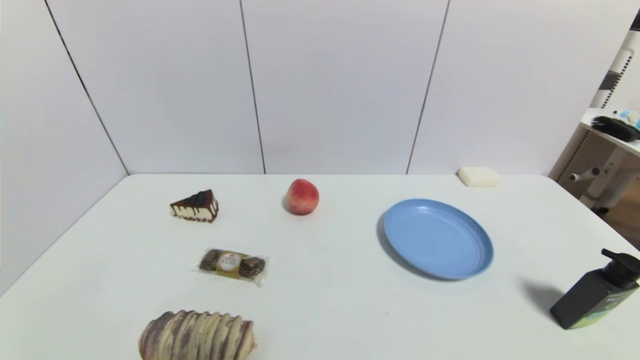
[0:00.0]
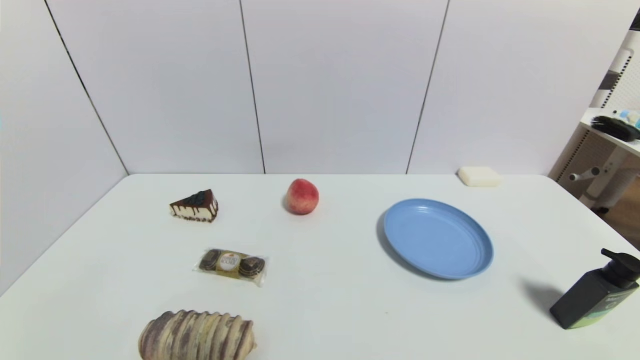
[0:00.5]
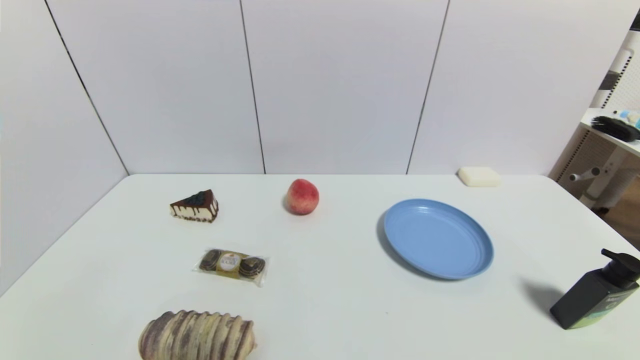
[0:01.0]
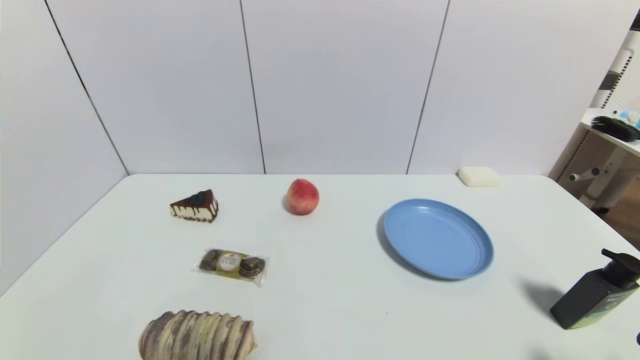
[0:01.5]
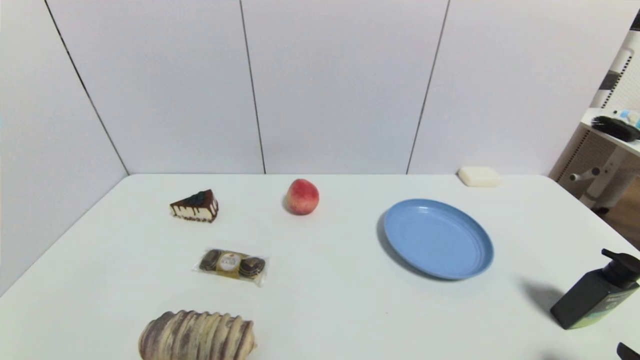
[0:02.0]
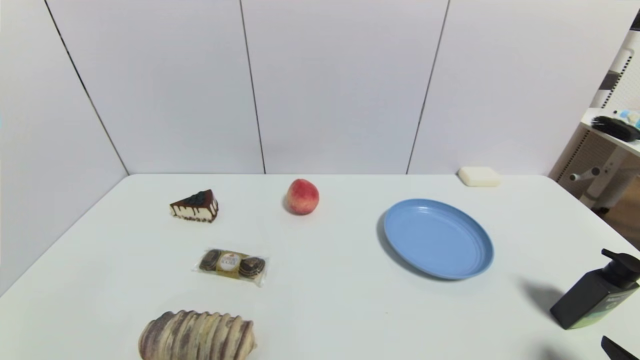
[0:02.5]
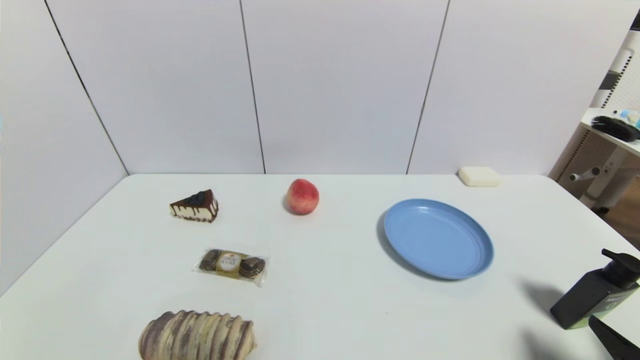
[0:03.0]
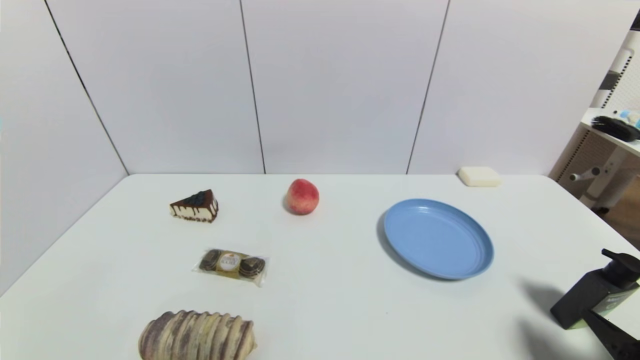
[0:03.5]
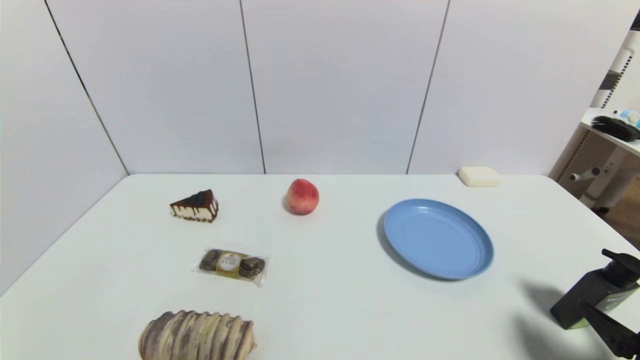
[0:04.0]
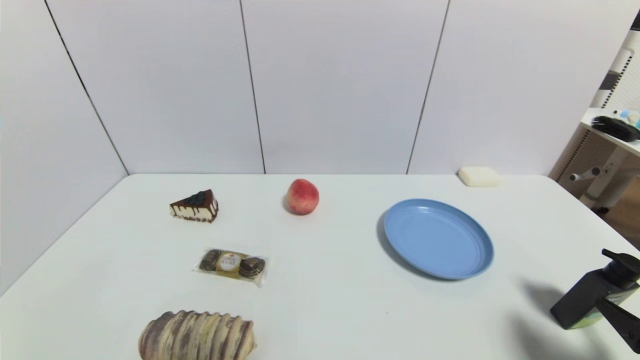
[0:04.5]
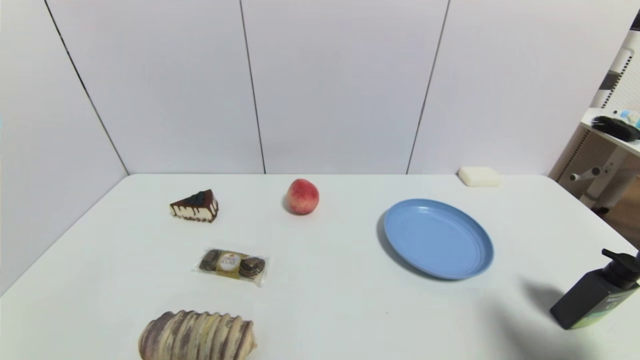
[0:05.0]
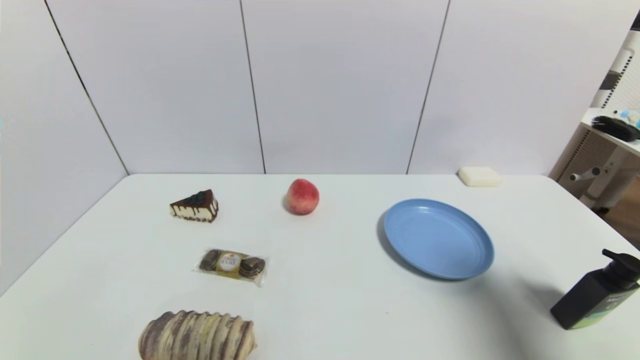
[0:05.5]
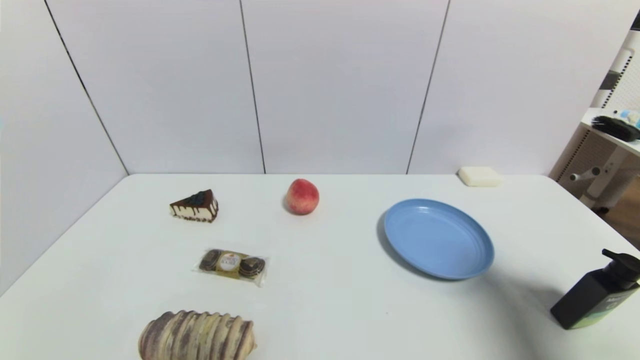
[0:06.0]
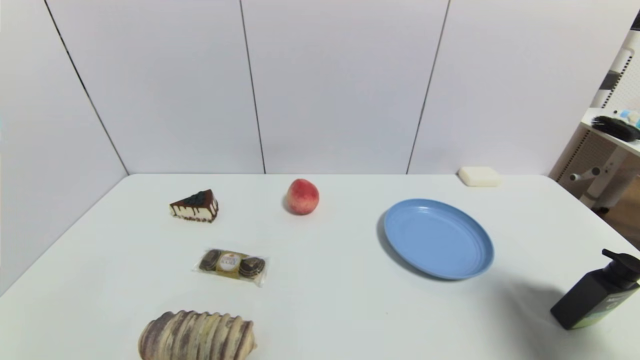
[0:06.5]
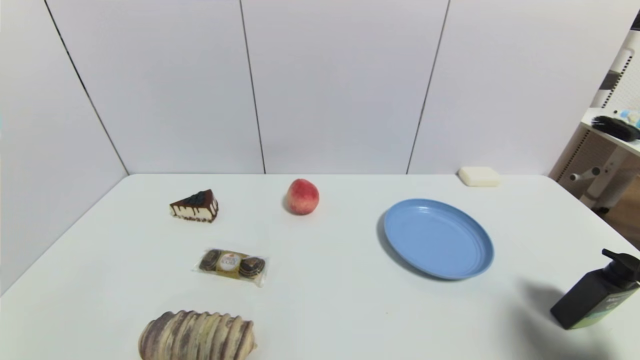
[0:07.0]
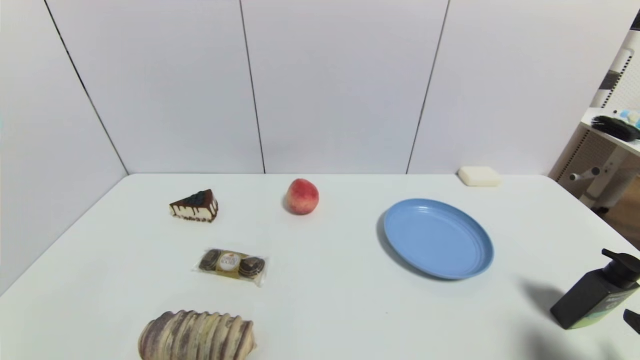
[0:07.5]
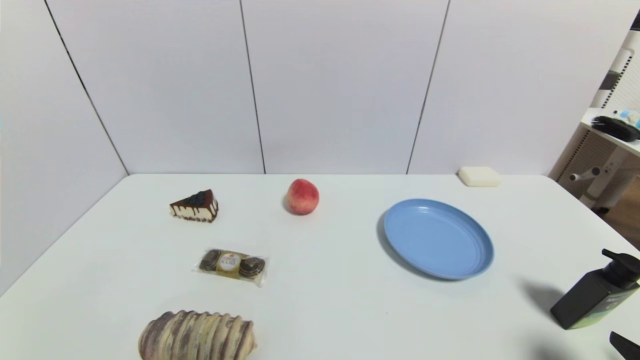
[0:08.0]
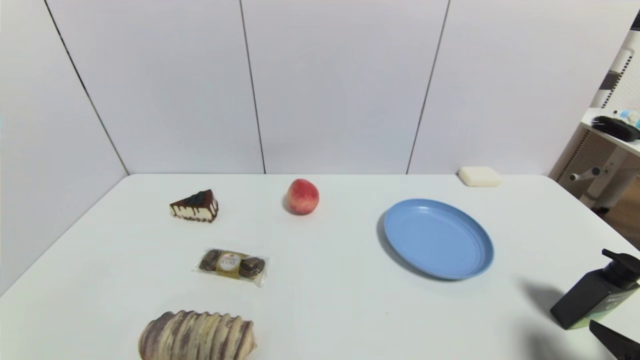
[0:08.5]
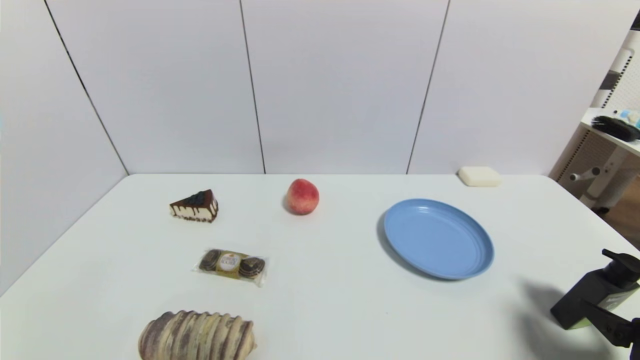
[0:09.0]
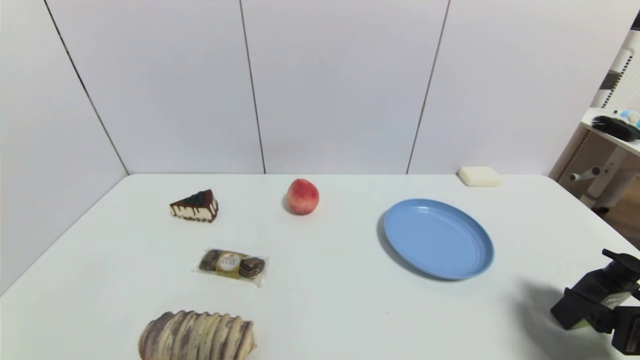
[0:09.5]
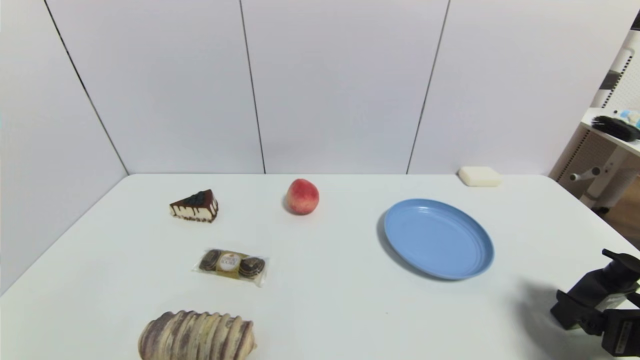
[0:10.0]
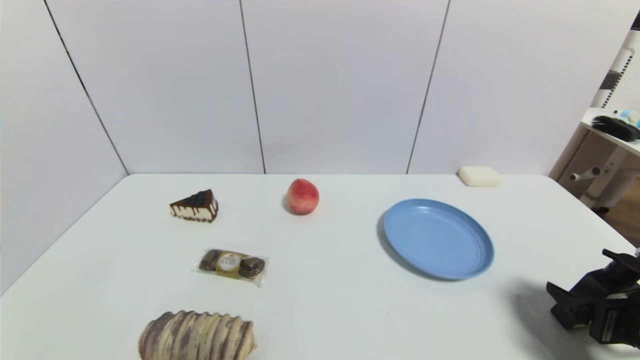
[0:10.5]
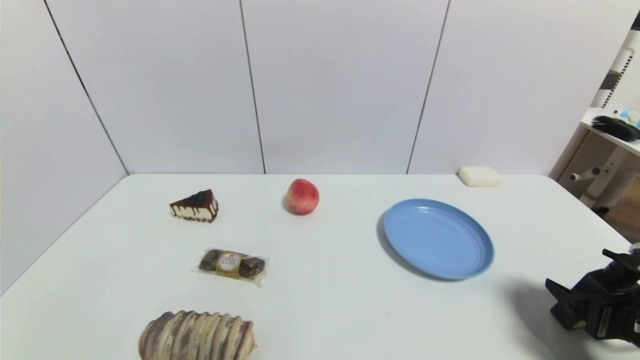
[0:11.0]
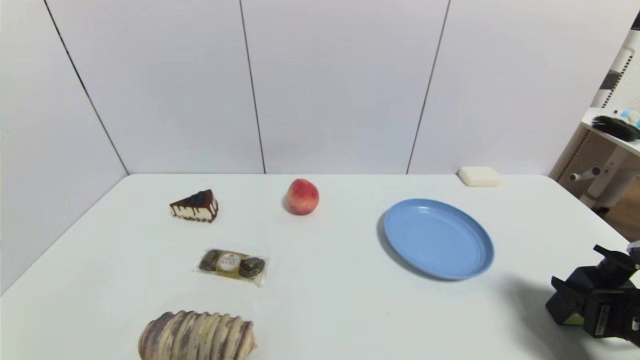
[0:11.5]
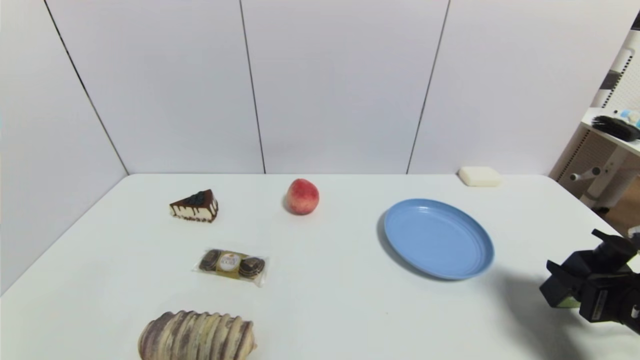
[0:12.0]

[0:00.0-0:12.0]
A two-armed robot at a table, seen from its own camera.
Task of the whole recording: use a gripper to pick the target object and place on the blue plate.
Step, 0:00.0 to 0:11.0: Grasp the hard facial cleanser with the right gripper.
0:02.0 to 0:04.0: The right gripper shifts about 5 cm forward.
0:04.0 to 0:06.0: The right gripper shifts approximately 15 cm upward.
0:06.0 to 0:08.0: The right gripper heads downward and backward, covering about 15 cm.
0:08.0 to 0:10.0: The right gripper is displaced forward by about 5 cm.
0:10.0 to 0:12.0: The right gripper closes its fingers.

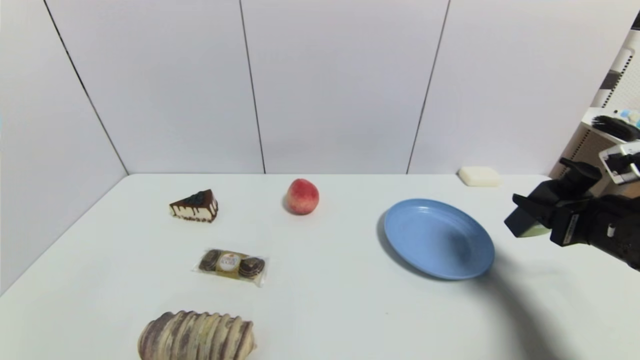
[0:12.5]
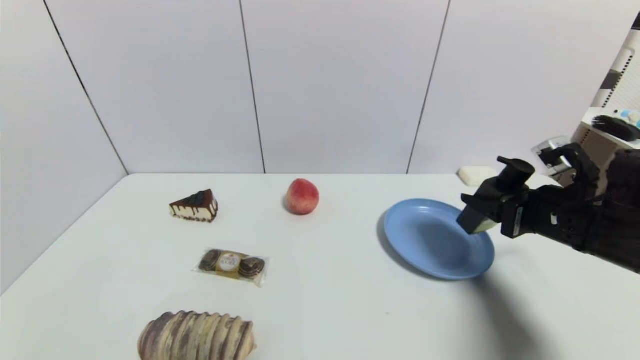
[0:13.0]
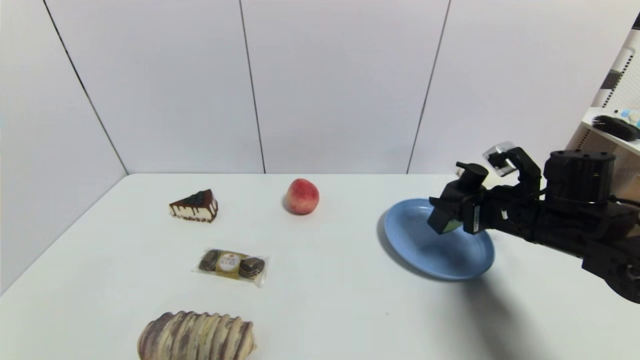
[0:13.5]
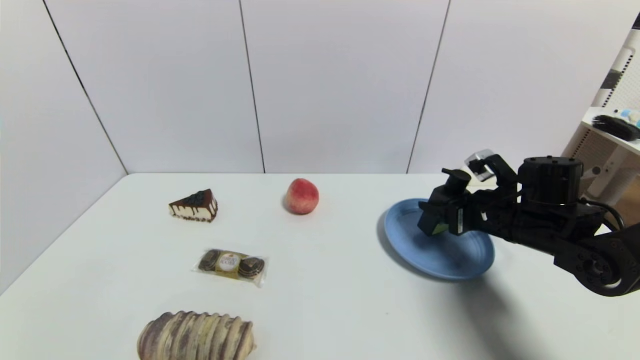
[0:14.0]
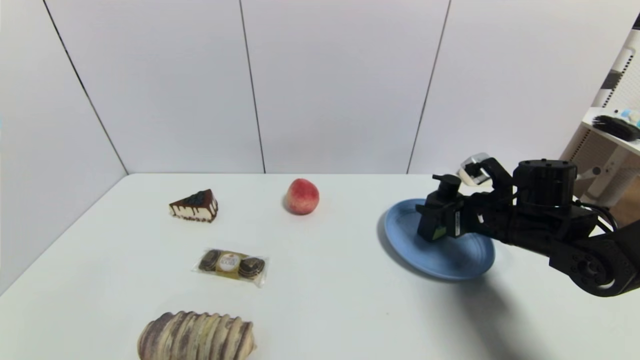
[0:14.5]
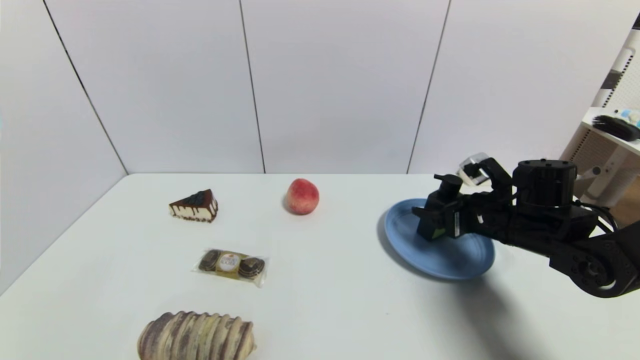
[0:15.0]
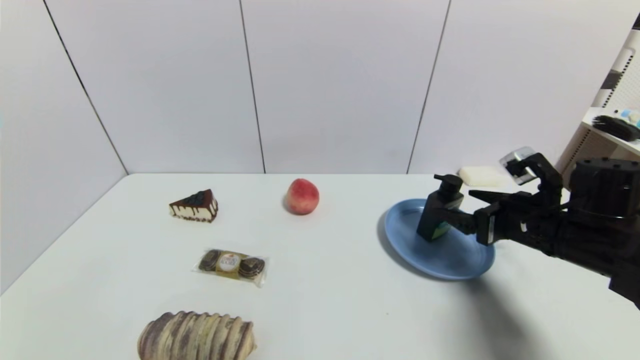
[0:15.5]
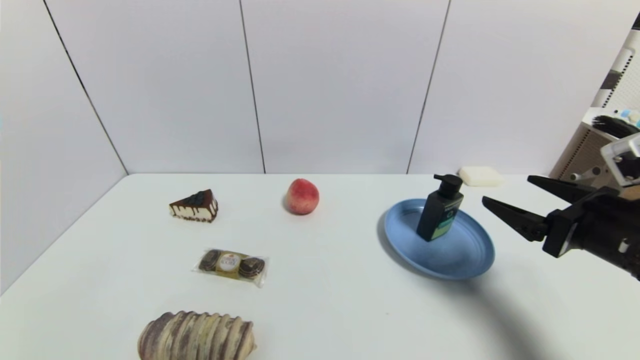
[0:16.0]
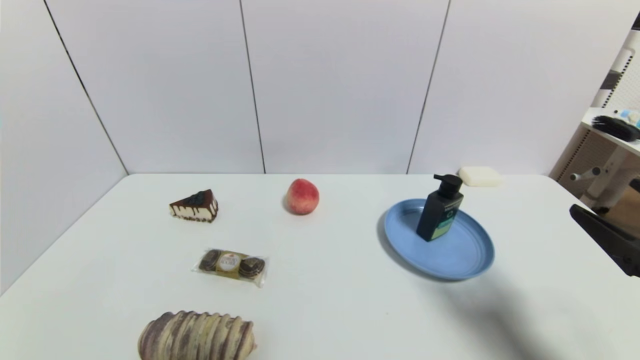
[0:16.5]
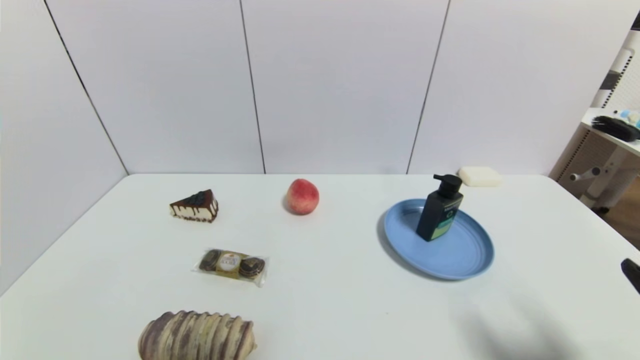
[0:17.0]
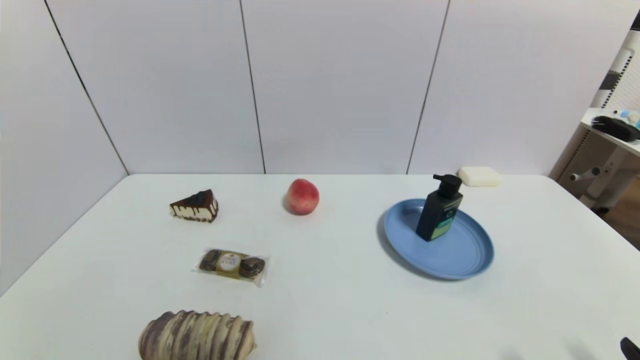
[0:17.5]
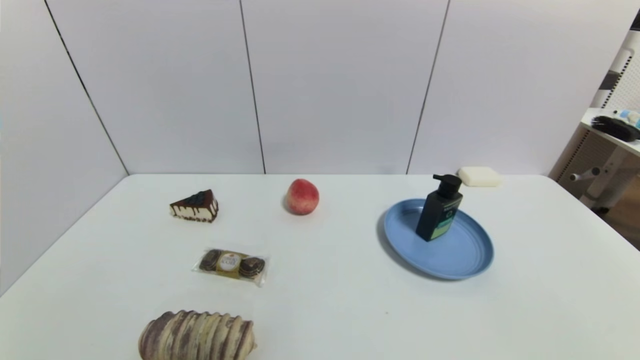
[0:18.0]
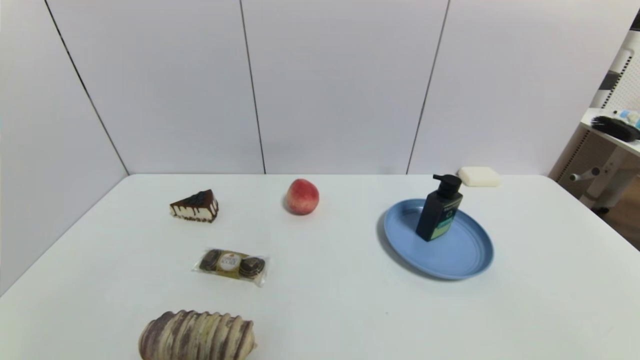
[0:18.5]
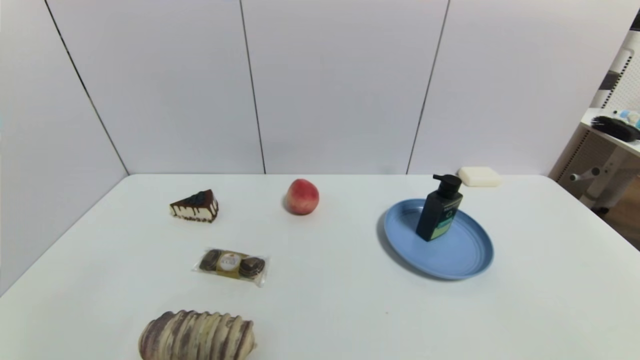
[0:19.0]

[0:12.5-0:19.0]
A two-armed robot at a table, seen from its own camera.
Task of the whole recording: use a gripper to pick the target object and place on the blue plate.
Step, 0:12.5 to 0:14.5: Place the hard facial cleanser on the blue plate with the right gripper.
0:12.5 to 0:14.5: The right gripper moves forward, to the left and downward, roughly 15 cm.
0:14.5 to 0:17.0: The right gripper is displaced backward by some 25 cm.
0:17.0 to 0:19.0: The right gripper moves downward and backward, approximately 10 cm, and closes up.
